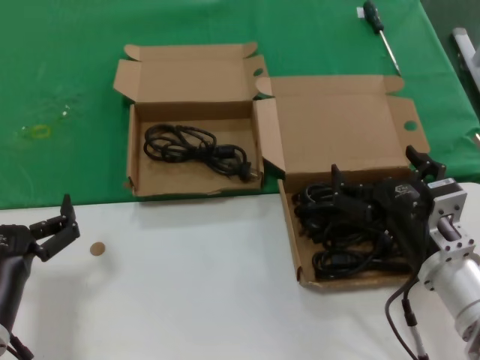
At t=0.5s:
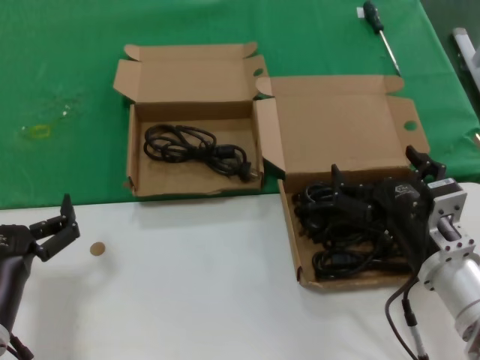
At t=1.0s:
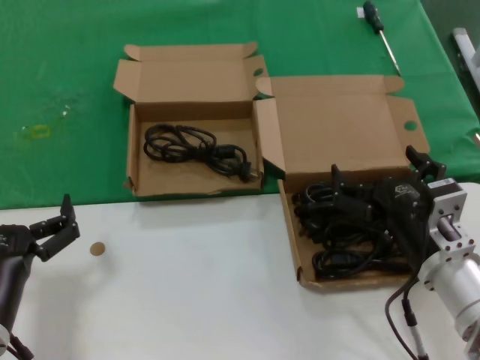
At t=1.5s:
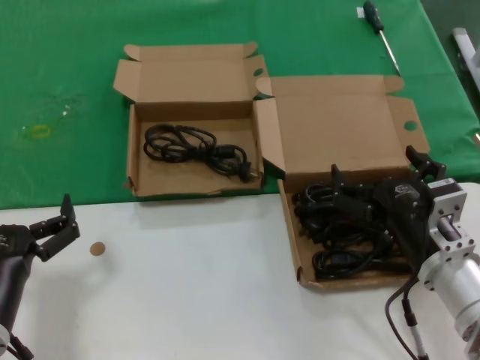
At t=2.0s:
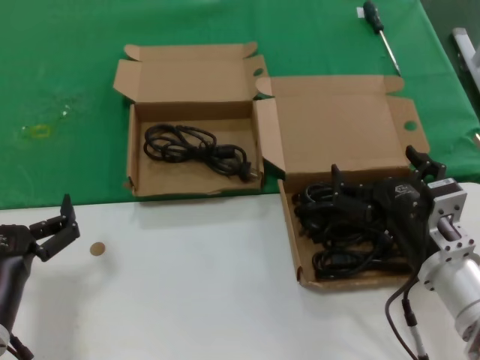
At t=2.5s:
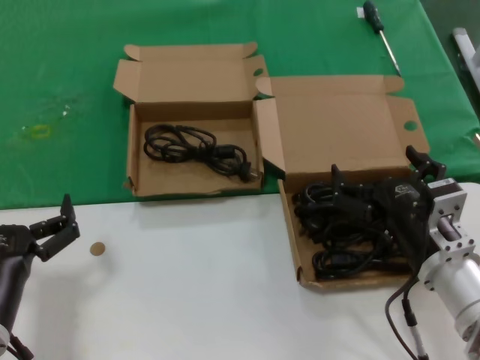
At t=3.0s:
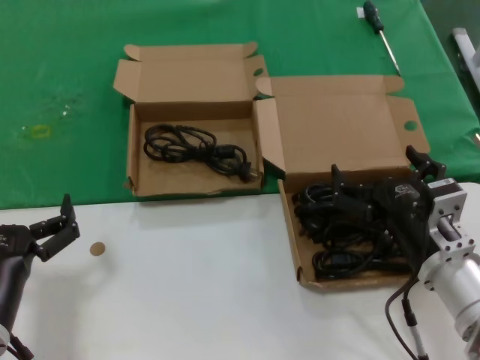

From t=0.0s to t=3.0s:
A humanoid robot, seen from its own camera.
Task of the whole recording: take the parts from the box containing them and put them into an empty box.
From t=0.0s to t=3.0s: Neither hand changes place.

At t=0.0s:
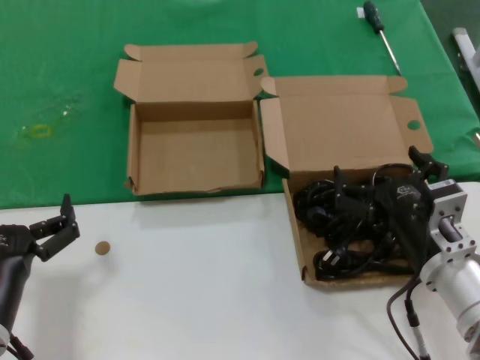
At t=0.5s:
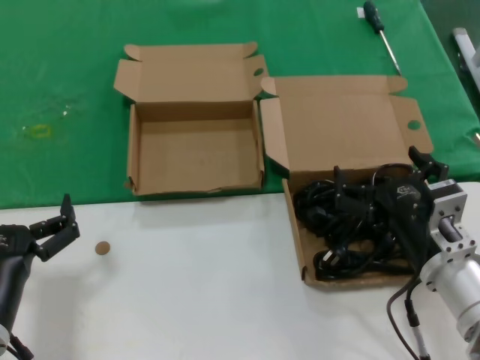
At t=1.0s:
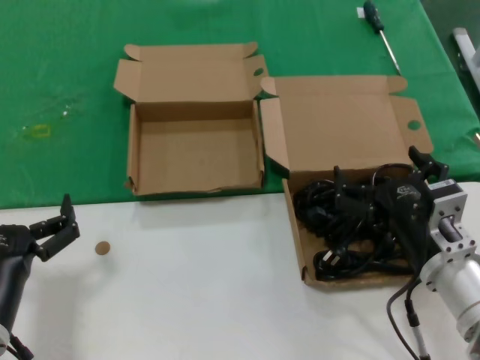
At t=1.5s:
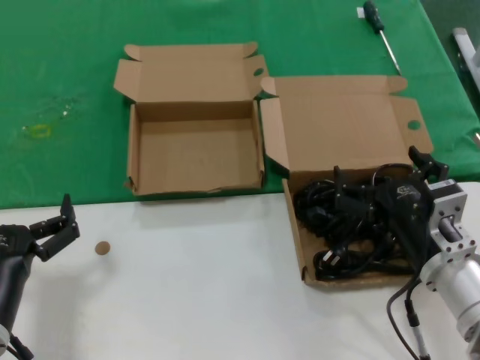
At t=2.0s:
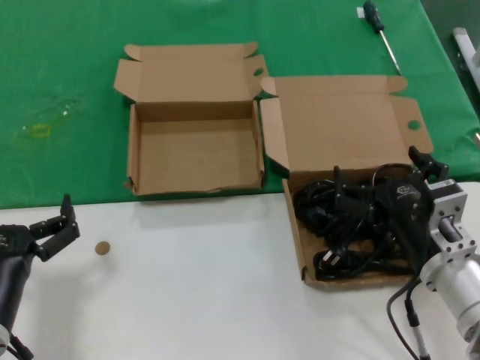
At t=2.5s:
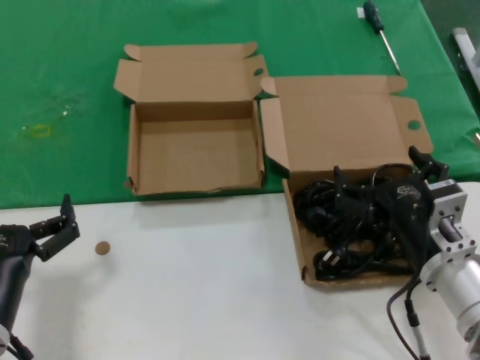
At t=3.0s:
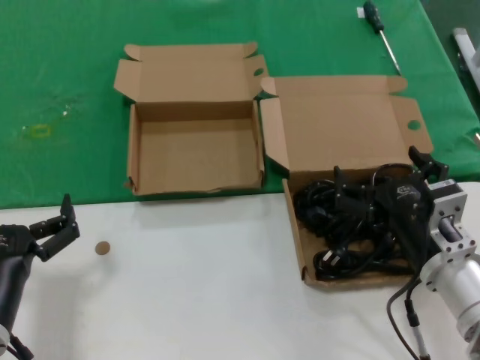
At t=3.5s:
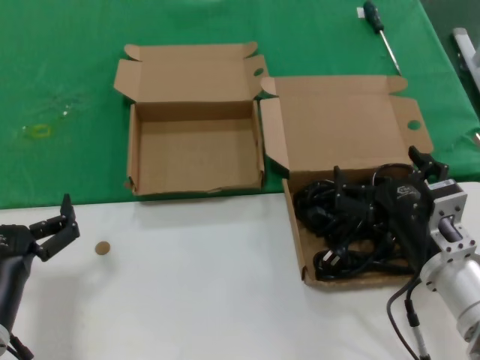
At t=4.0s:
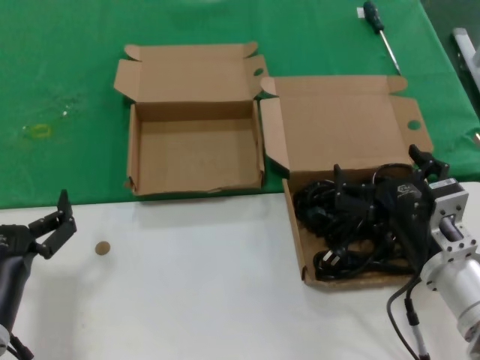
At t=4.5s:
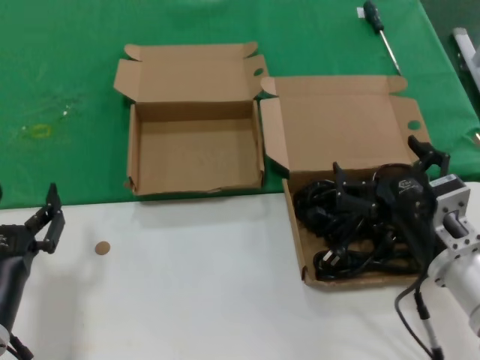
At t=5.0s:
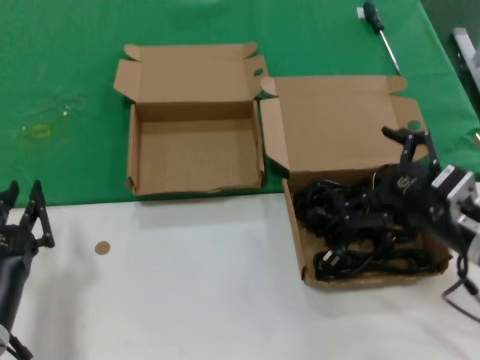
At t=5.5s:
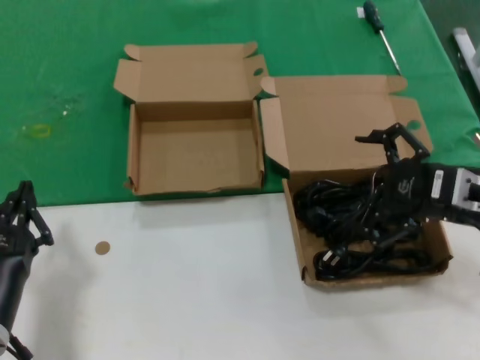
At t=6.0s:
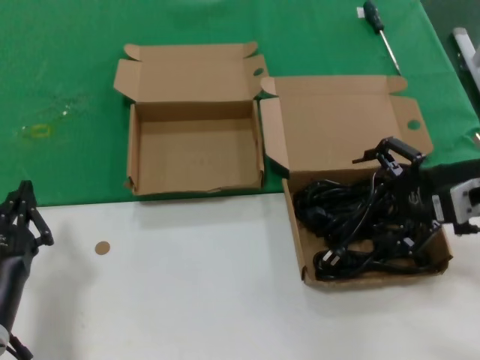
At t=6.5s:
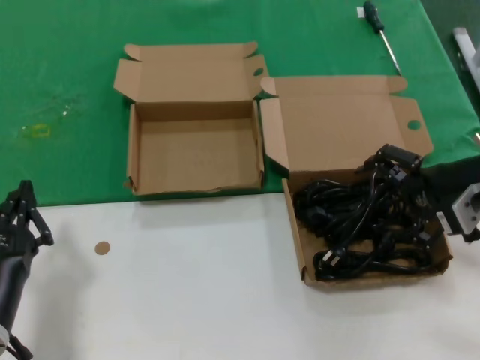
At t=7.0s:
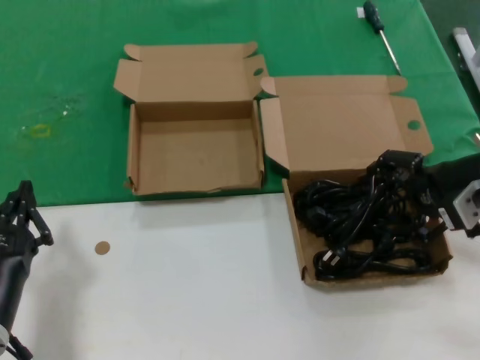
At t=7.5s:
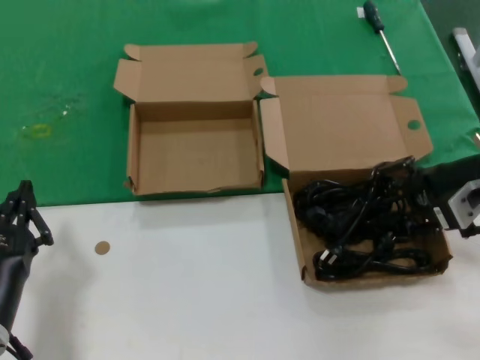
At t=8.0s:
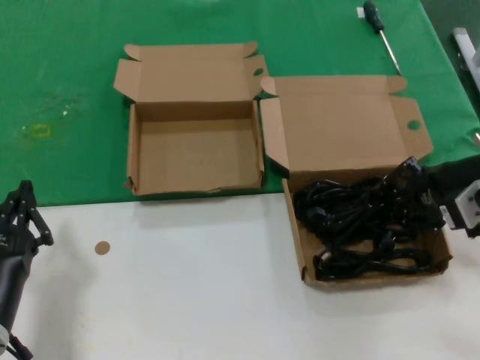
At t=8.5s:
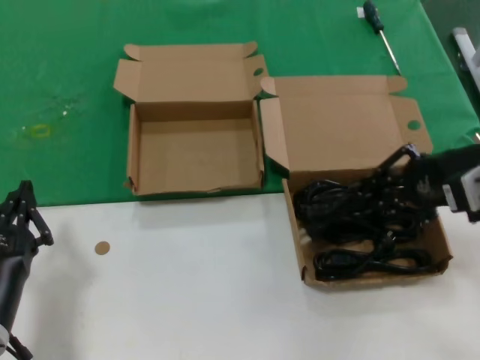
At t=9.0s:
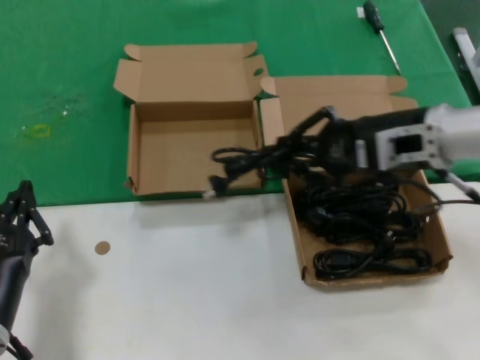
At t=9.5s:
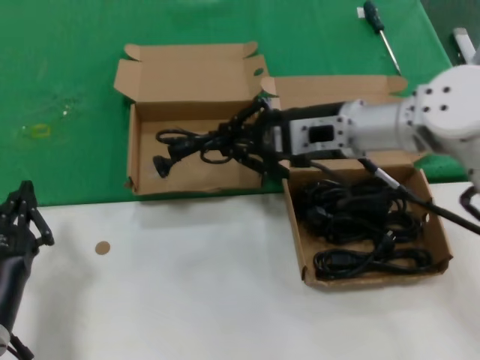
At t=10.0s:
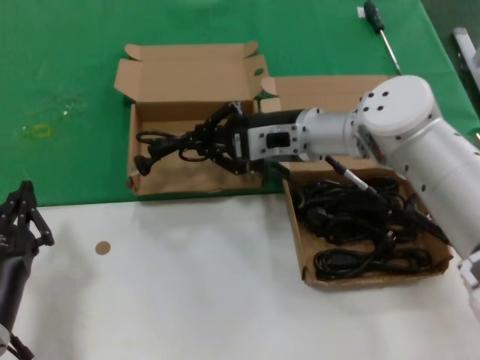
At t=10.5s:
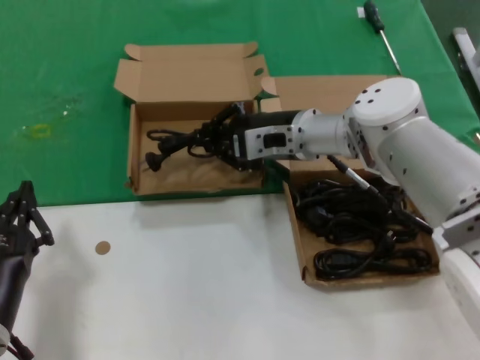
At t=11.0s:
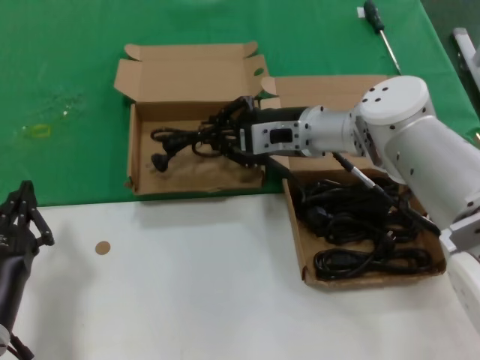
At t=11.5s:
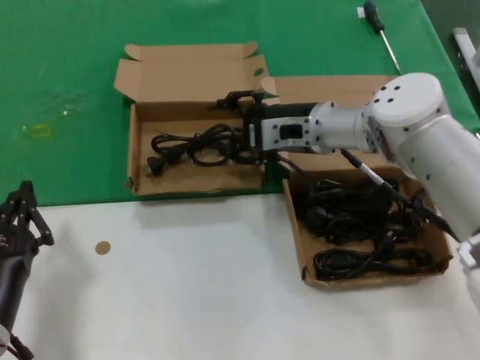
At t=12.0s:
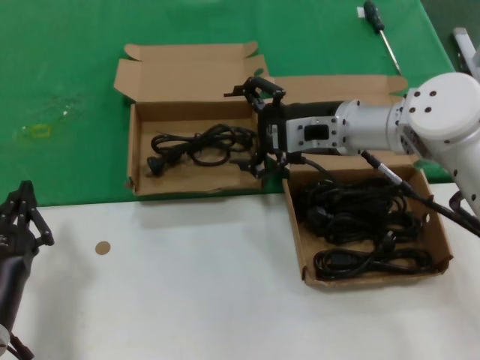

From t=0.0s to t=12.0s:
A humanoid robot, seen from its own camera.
Task of the whole recording: take the parts from the box containing them and put them into an empty box.
Step, from t=0.0s to t=8.0s: Grasp the data cable.
Step, from t=8.5s to t=11.5s: Place the data cable in the another box.
From t=0.0s to t=4.0s: Both hands stay put.
From t=4.0s to t=6.0s: The right hand heads upward, to the right and forward, covering some 20 cm.
From t=6.0s to t=8.0s: The hands stay close to where they were, moving slightly.
From t=8.0s to t=10.0s: The right hand is displaced to the left and forward by approximately 25 cm.
From t=10.0s to t=12.0s: There are only small adjustments of the hands.

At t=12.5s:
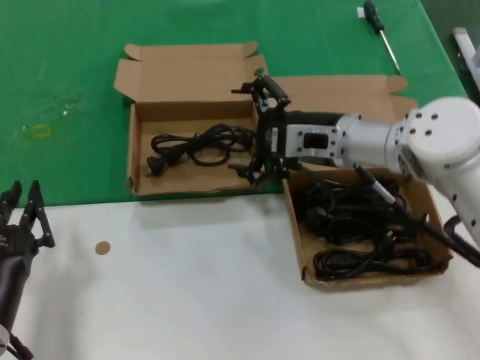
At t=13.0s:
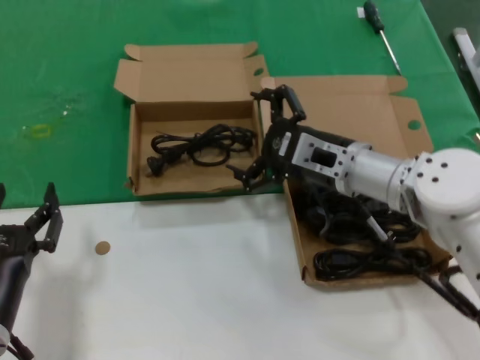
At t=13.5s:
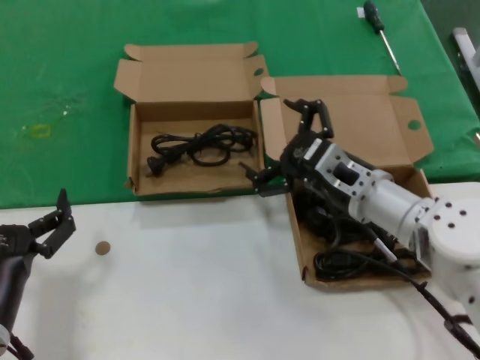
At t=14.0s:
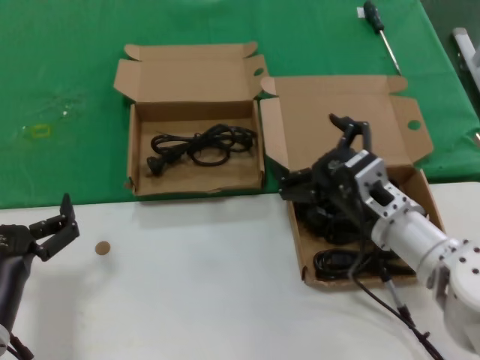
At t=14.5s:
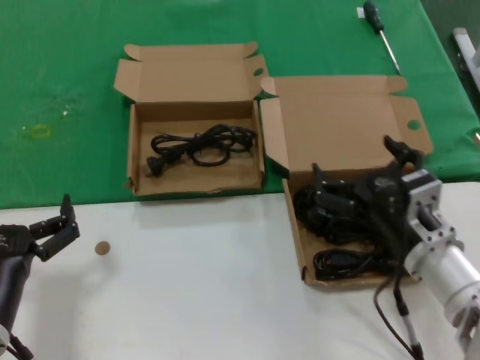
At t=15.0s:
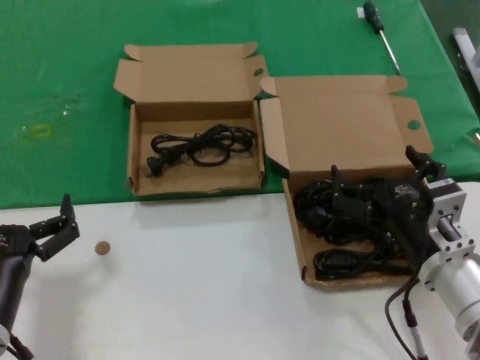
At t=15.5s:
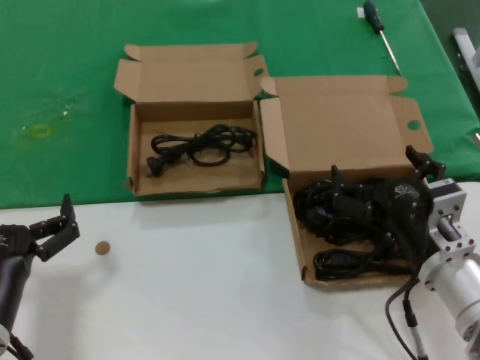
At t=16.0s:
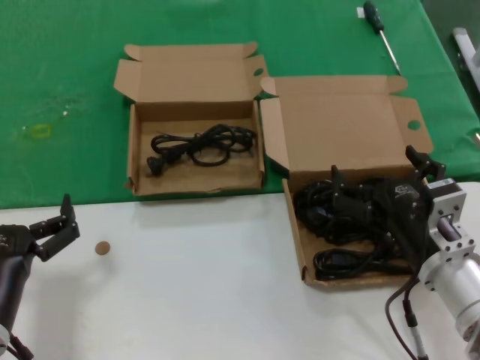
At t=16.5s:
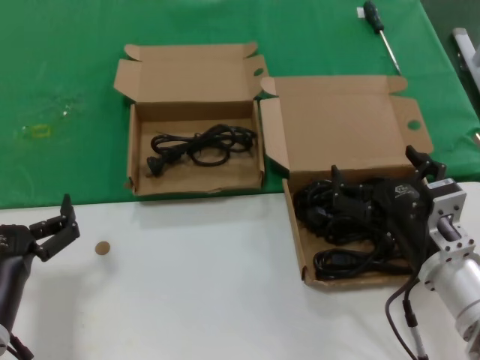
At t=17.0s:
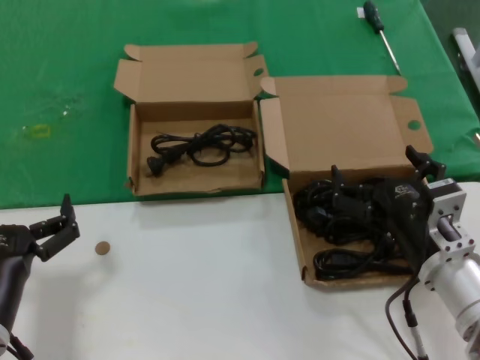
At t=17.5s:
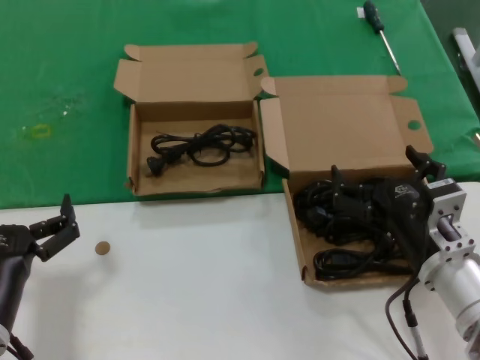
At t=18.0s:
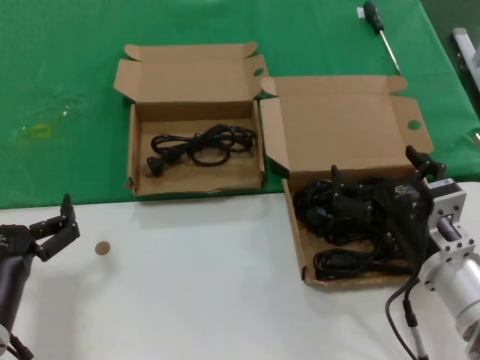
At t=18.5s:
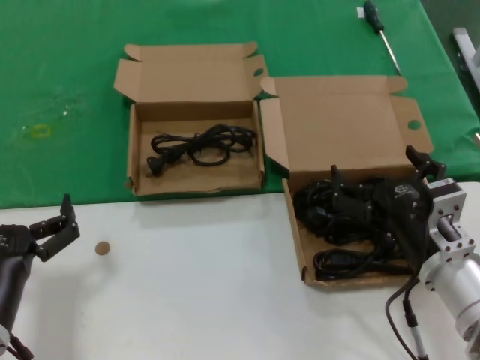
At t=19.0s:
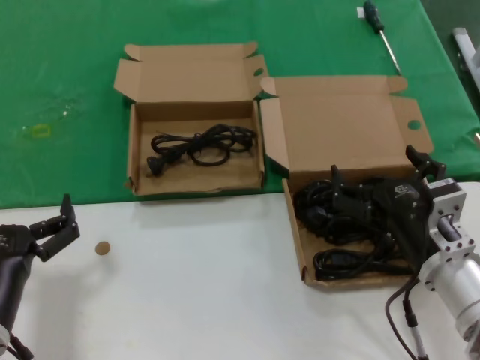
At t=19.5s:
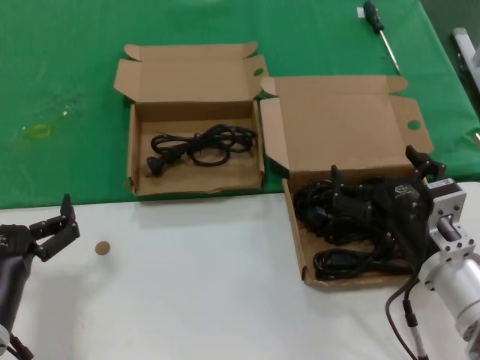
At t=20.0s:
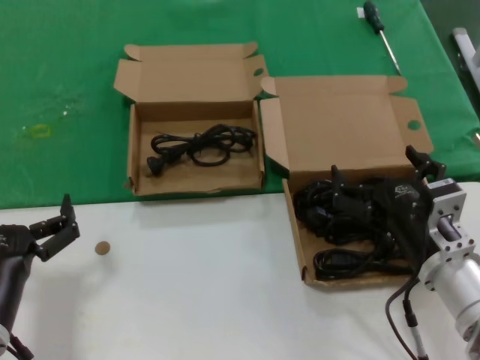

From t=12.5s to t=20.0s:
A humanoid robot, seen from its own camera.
Task of the whole recording: take the parts from the box containing them and put them into an empty box.
From t=12.5s to t=14.5s: The right hand heads backward and downward, covering roughly 20 cm.
From t=14.5s to t=16.5s: The hands move only a little.
From t=16.5s to t=20.0s: The two hands keep their place.
